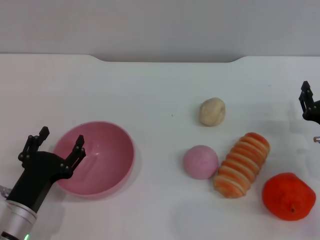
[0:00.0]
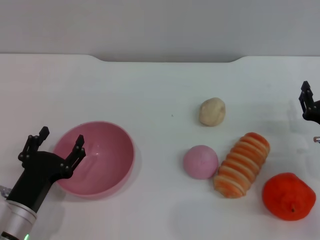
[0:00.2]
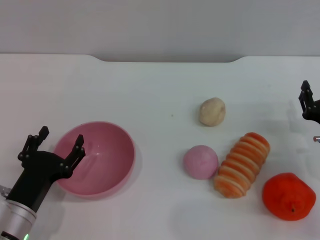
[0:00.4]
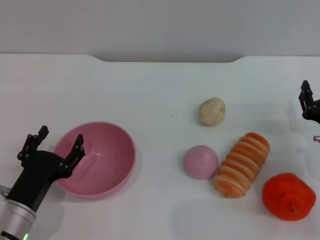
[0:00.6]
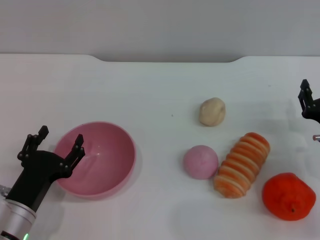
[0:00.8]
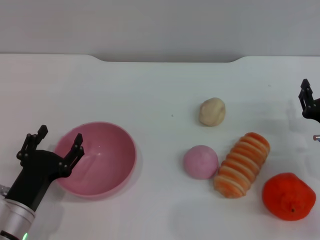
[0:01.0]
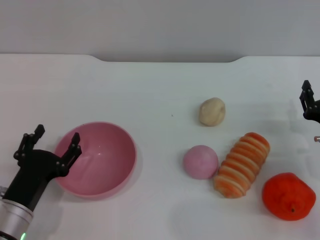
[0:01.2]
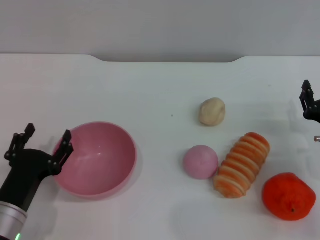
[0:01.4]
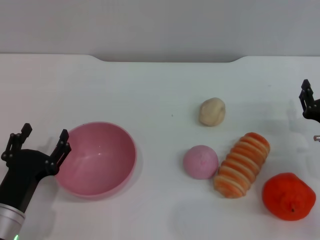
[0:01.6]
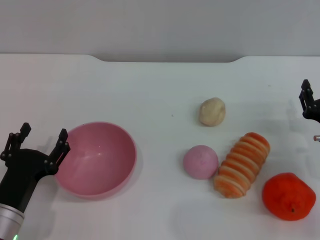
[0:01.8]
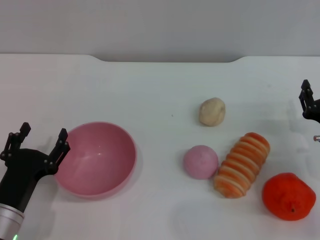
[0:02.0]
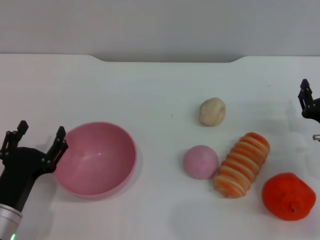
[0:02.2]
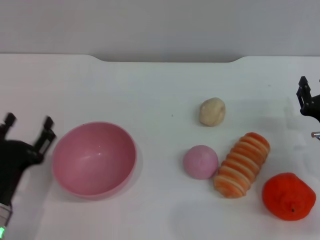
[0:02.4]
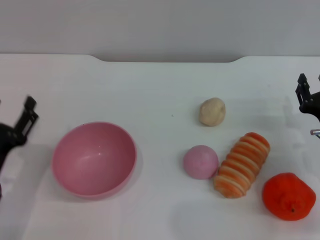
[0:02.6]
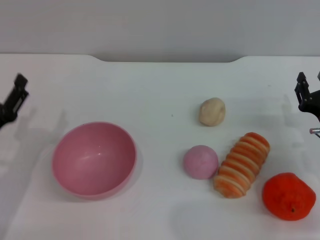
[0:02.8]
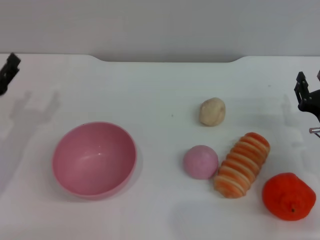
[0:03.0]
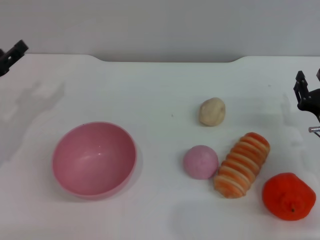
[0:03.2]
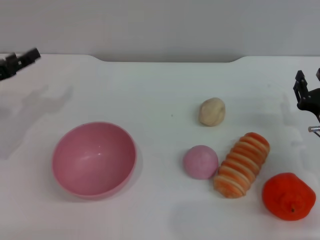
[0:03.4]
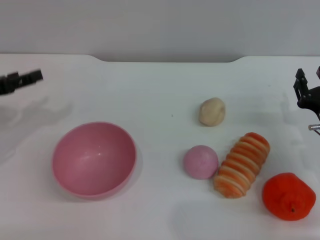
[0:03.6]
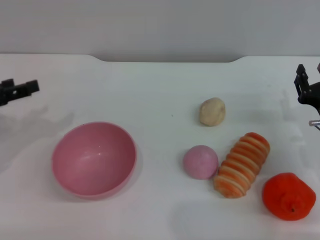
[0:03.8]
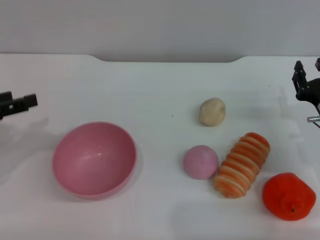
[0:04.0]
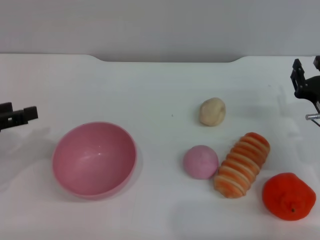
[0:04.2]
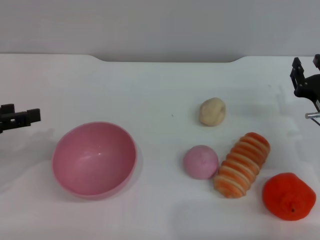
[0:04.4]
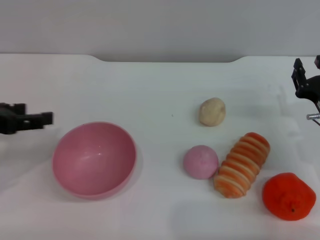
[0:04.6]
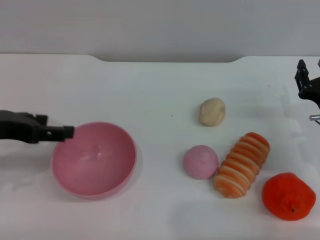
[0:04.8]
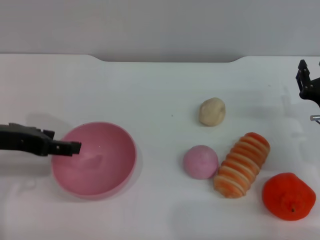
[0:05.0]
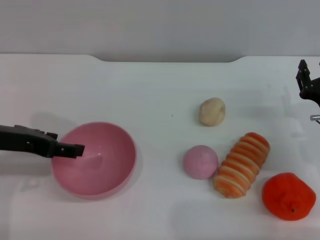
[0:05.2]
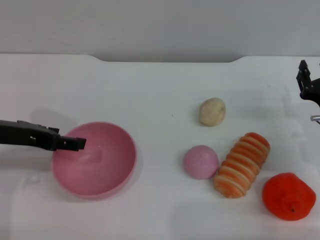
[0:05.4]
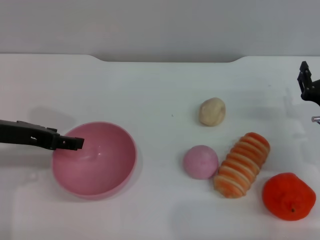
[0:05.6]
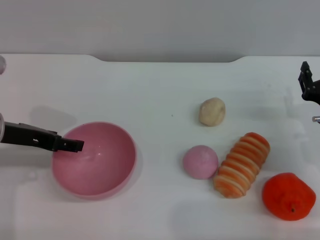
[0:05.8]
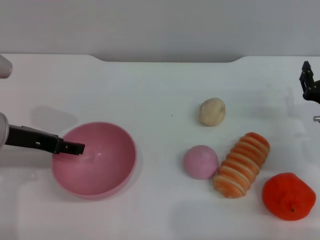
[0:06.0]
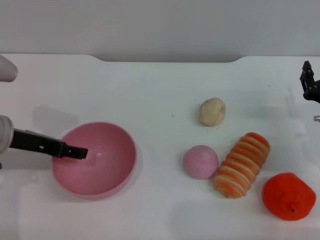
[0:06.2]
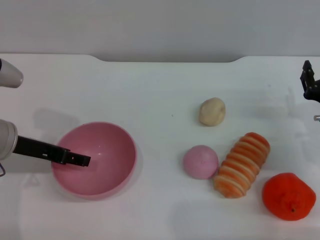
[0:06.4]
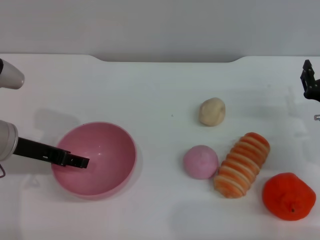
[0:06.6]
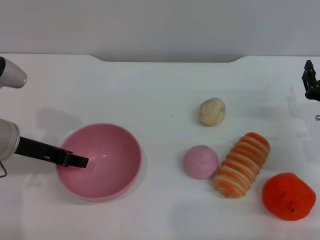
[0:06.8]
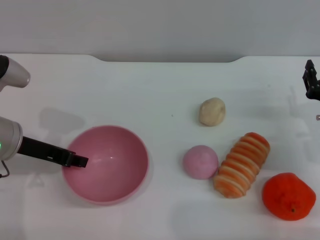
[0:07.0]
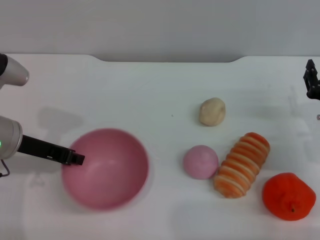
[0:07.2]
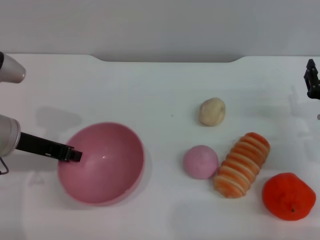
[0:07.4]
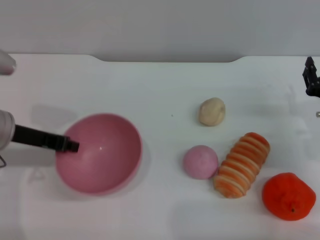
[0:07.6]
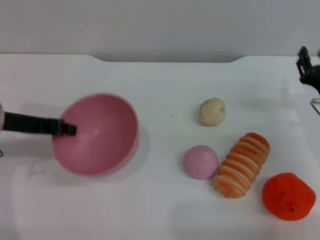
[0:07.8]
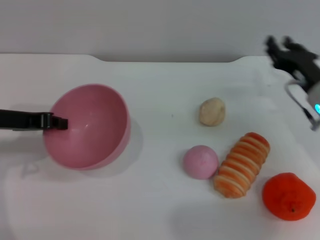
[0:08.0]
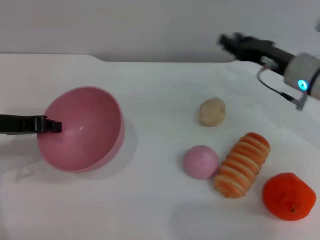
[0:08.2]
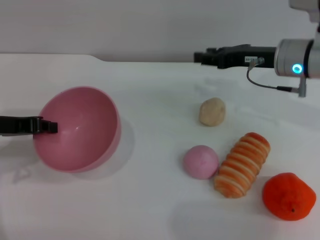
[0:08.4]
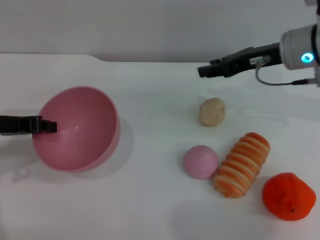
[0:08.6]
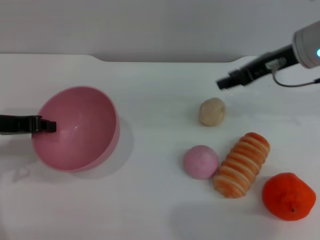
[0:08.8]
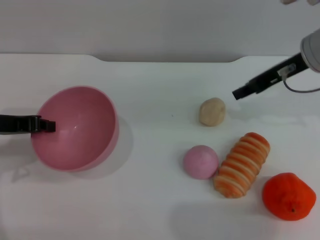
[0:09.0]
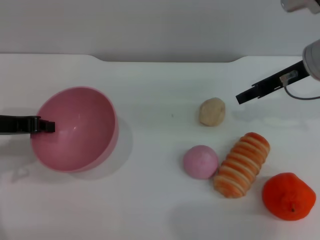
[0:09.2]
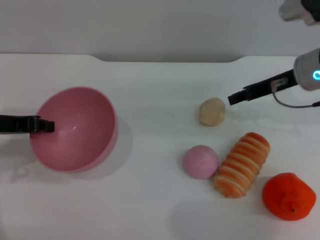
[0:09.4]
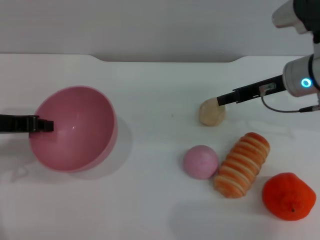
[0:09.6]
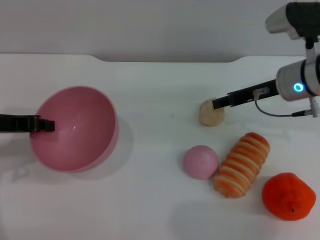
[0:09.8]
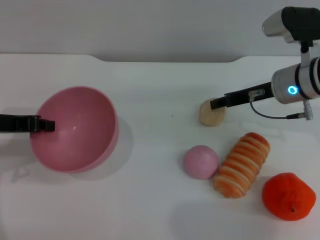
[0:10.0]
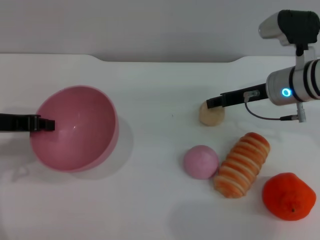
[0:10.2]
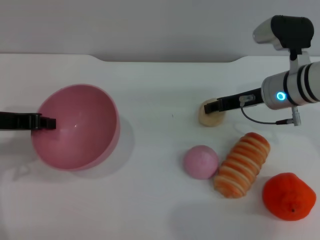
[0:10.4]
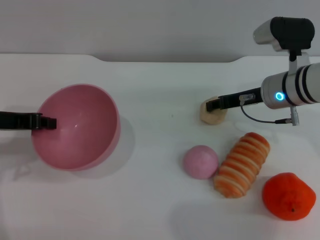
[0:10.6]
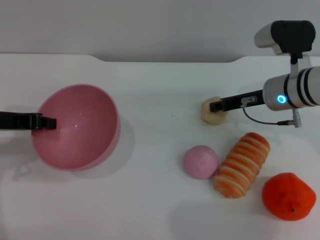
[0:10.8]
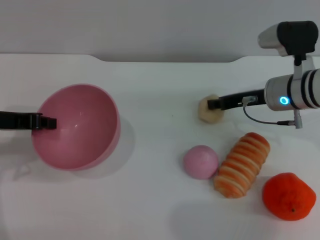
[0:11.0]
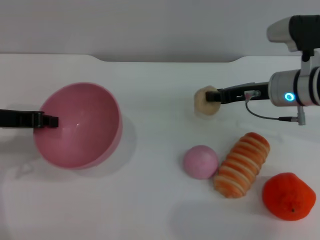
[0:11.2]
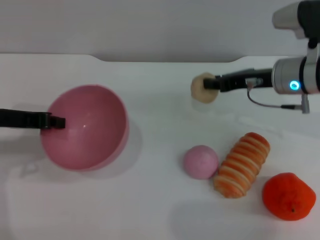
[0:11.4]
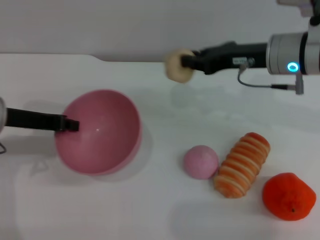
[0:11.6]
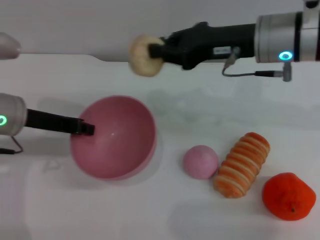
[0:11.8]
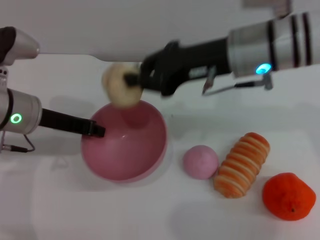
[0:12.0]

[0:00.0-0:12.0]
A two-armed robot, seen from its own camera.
Task of the whole recording: put the egg yolk pastry into the pink bowl and pour it out repeatedly.
Step, 0.0 to 9.0 s: Pick up the bowl with the left gripper.
Step, 9.4 to 11.2 s: Pick up the egg yolk pastry with the right gripper.
0.0 to 1.6 s: The grippers stay close to where they were, moving slightly.
1.6 to 3.0 s: The left gripper shifts some 15 cm forward, to the left and upward.
3.0 to 4.4 s: The left gripper shifts about 10 cm upward.
4.4 to 6.0 s: The left gripper travels to the right and forward by some 10 cm.
6.0 to 7.6 s: The left gripper closes up.
7.6 to 9.0 s: The right gripper shifts approximately 20 cm upward, forward and to the left.
9.0 to 10.4 s: The right gripper is displaced downward by approximately 10 cm.
10.4 to 12.0 s: The right gripper shifts approximately 15 cm upward and to the left, and closes its fingers. The left gripper travels to the right by roughly 5 cm.

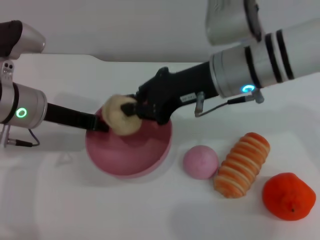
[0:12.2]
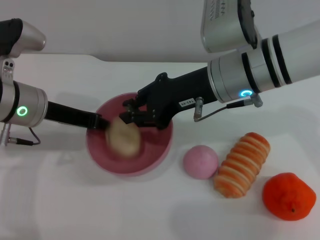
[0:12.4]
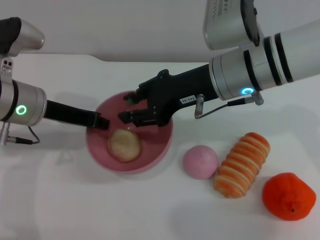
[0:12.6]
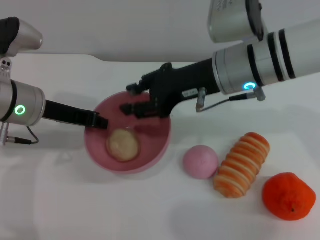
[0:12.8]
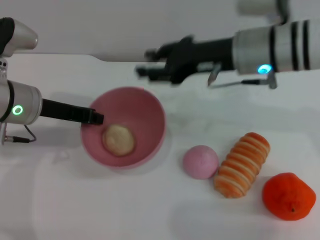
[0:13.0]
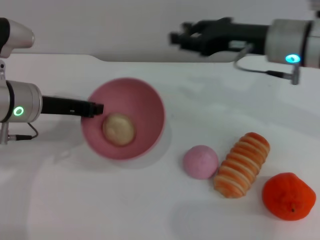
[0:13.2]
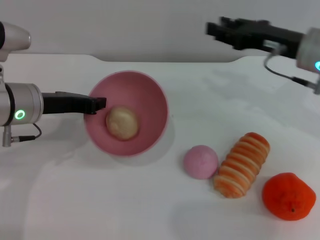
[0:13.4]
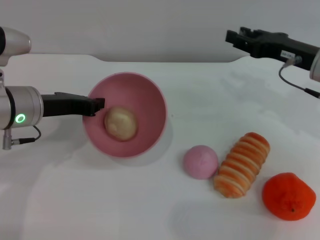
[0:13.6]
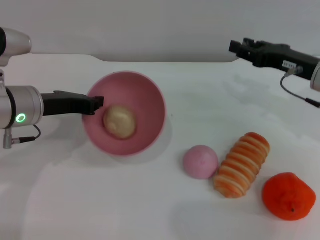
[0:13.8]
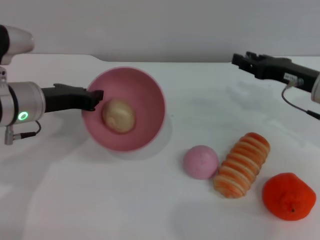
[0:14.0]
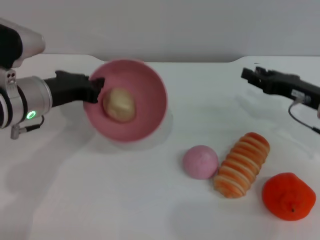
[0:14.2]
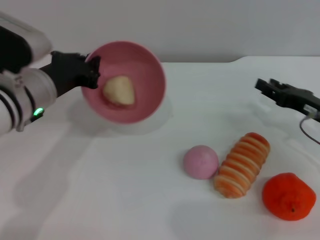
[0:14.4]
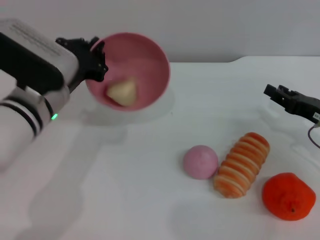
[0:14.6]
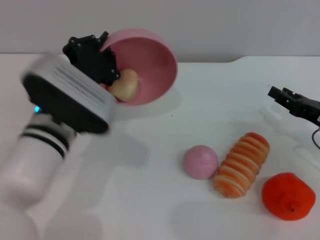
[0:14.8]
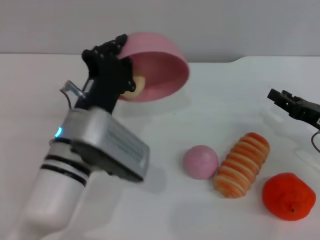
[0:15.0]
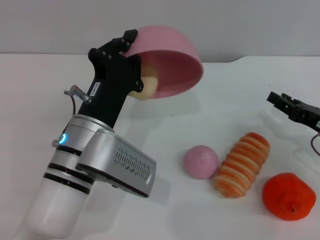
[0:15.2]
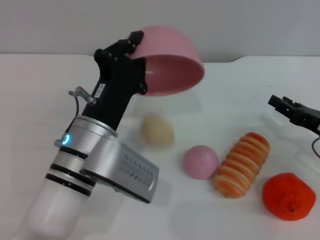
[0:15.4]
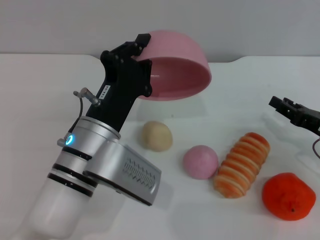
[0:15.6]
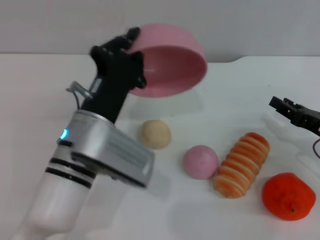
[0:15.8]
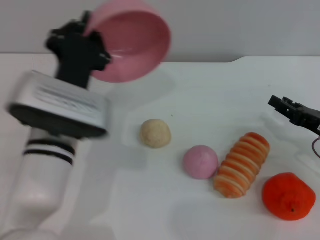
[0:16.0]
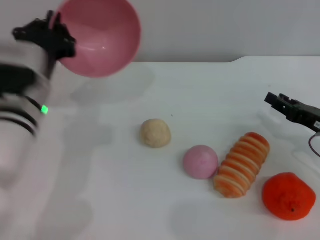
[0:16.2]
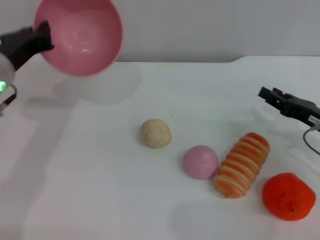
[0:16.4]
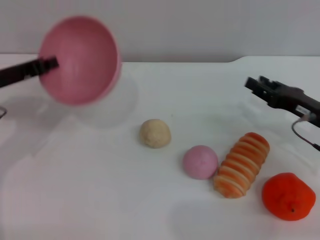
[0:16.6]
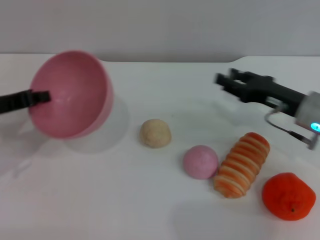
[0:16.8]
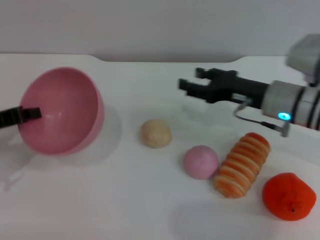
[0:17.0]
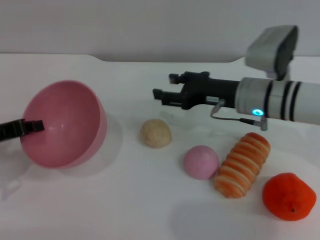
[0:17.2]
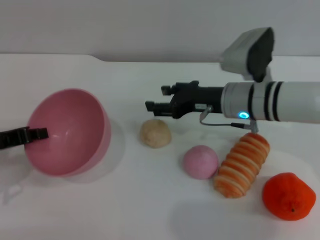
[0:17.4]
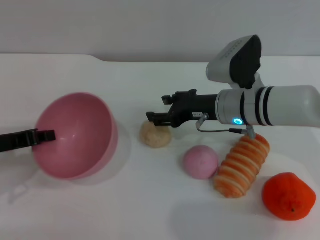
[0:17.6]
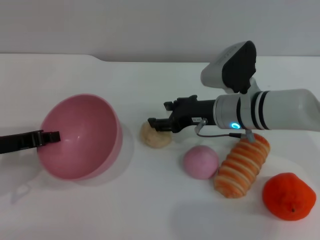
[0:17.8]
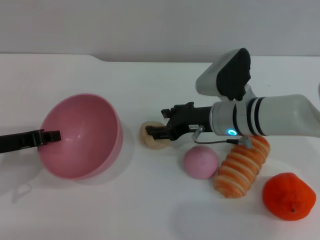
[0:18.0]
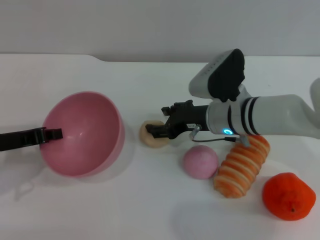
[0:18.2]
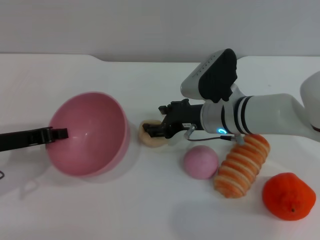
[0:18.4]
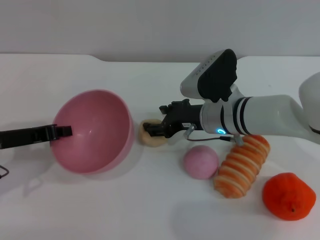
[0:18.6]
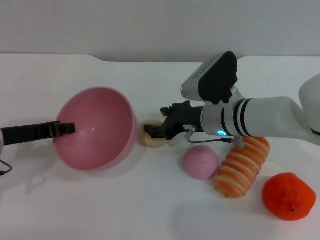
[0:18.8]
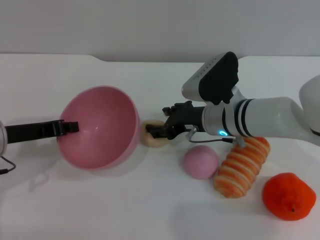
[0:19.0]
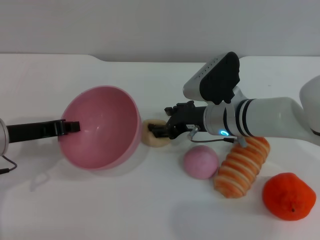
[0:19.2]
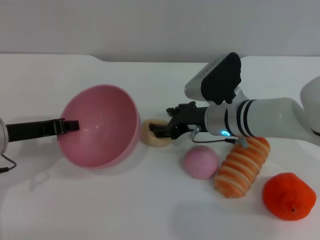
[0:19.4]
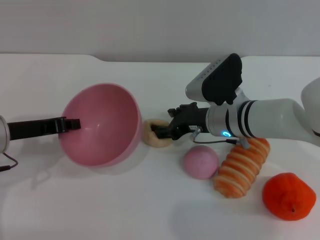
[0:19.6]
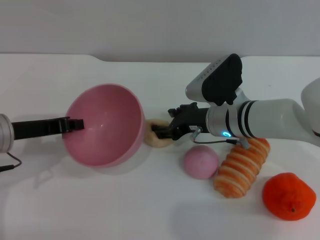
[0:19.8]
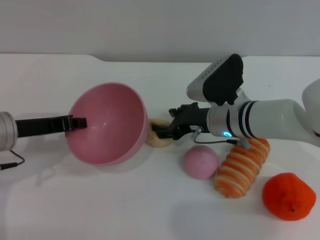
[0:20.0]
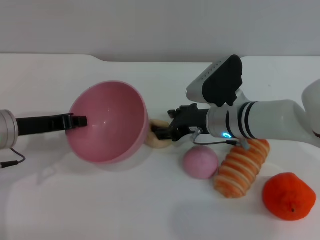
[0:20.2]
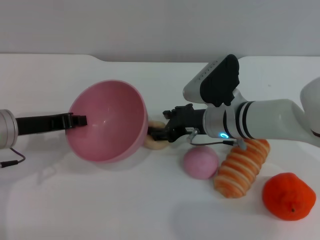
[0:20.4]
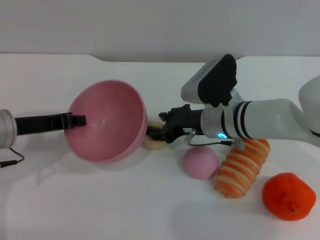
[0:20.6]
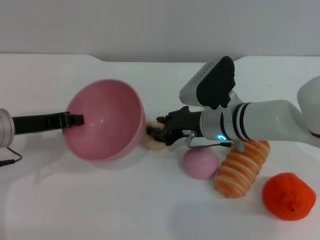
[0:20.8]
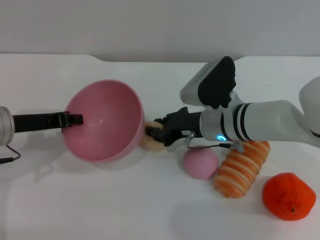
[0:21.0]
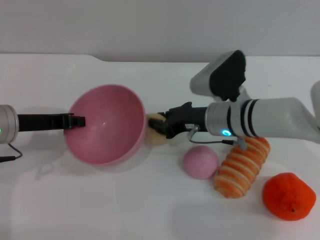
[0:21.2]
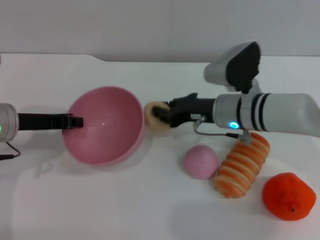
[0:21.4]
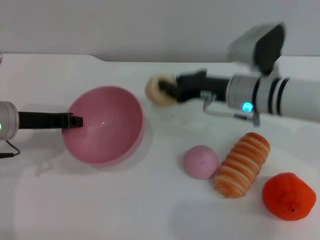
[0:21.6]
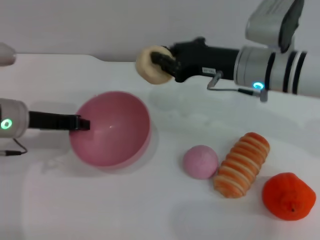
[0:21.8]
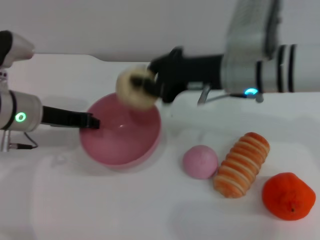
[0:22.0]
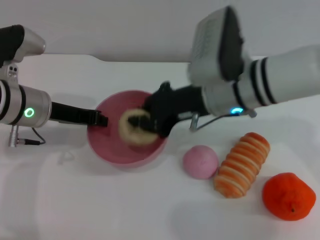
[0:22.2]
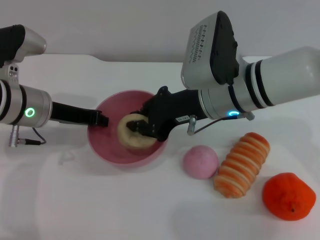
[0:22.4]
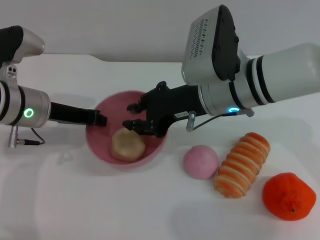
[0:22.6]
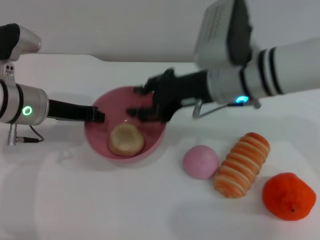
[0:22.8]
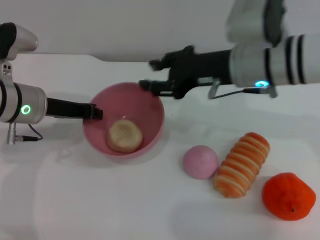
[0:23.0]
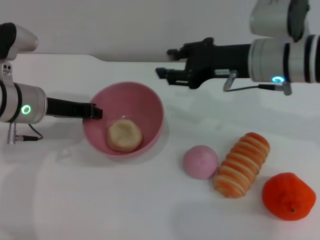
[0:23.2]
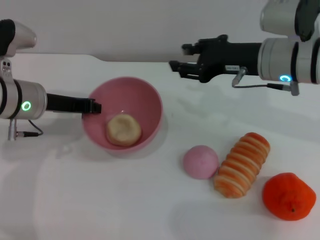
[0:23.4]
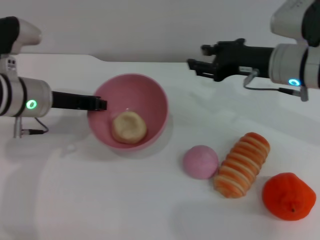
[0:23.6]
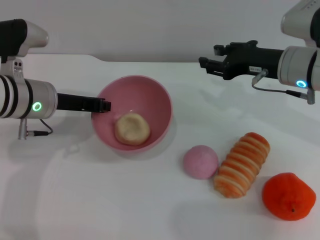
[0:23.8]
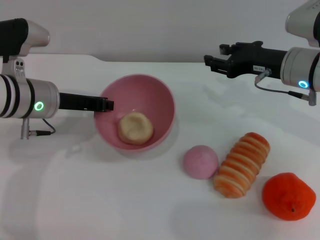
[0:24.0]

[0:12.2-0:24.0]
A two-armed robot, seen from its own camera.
Task of the whole recording: put the egg yolk pastry into the pink bowl and pour it out repeatedly.
Step, 13.0 to 15.4 s: Pour the egg yolk pastry out of bowl.
Step, 15.8 to 21.4 s: Pick up the egg yolk pastry with the right gripper.
Step, 21.6 to 22.8 s: Place the egg yolk pastry into the bowl.
12.2 to 13.6 s: The right gripper shifts roughly 15 cm to the right, and opens up.
13.6 to 15.2 s: The right gripper moves downward, backward and to the right, roughly 15 cm; the left gripper heads to the right and backward, covering about 15 cm.
15.2 to 16.6 s: The left gripper heads to the left and forward, covering some 20 cm.
16.6 to 18.2 s: The left gripper heads backward, covering some 5 cm. Meanwhile the right gripper travels to the left by roughly 15 cm, and opens.
18.2 to 19.6 s: The grippers stay close to where they were, moving slightly.
19.6 to 21.0 s: The right gripper closes up.
21.0 to 22.6 s: The right gripper travels upward by some 10 cm. The left gripper moves some 5 cm.
22.6 to 24.0 s: The right gripper shifts some 10 cm to the right, and opens up.
